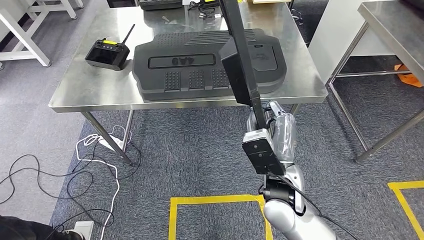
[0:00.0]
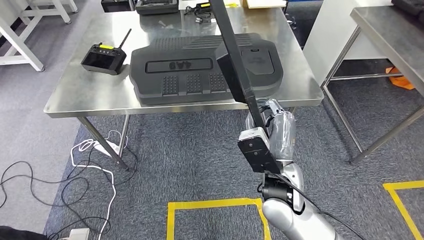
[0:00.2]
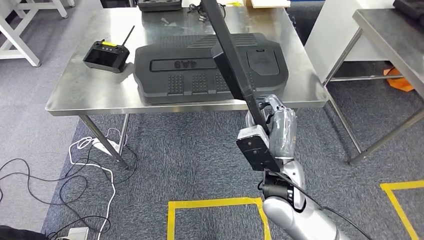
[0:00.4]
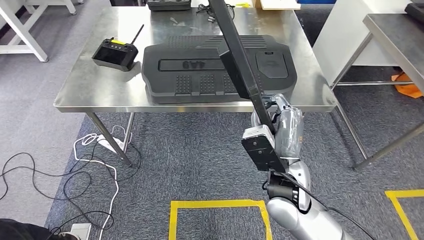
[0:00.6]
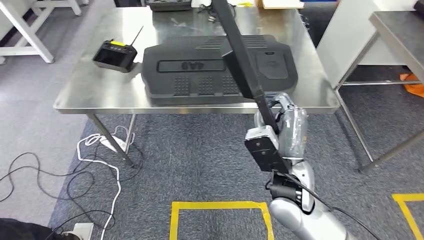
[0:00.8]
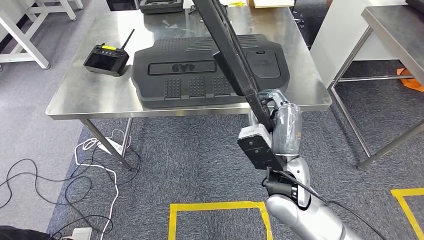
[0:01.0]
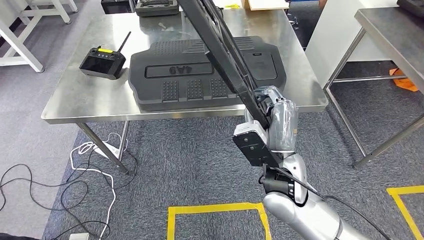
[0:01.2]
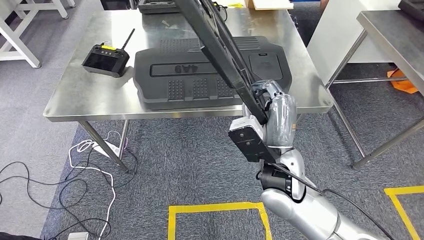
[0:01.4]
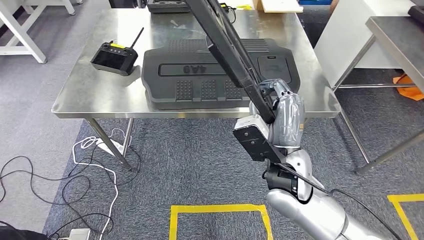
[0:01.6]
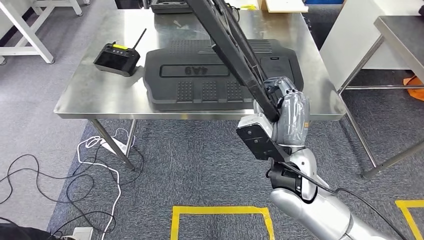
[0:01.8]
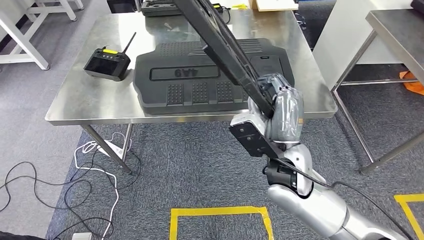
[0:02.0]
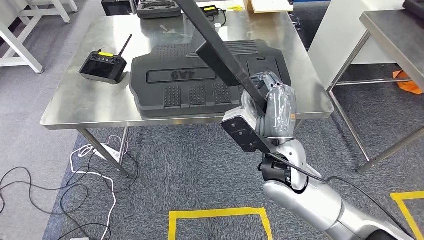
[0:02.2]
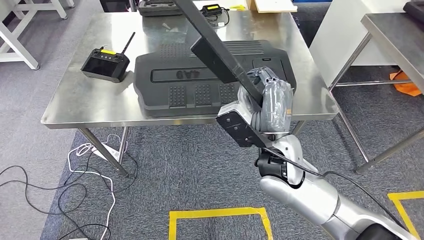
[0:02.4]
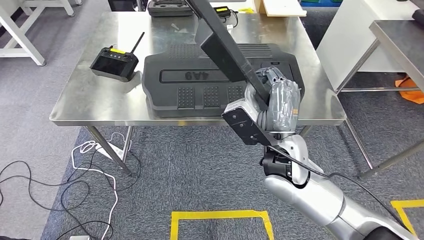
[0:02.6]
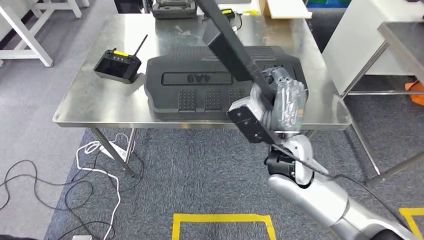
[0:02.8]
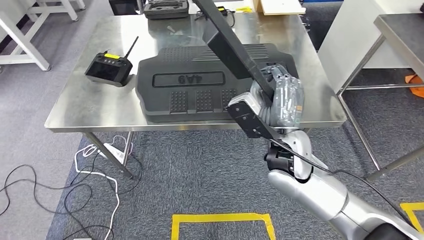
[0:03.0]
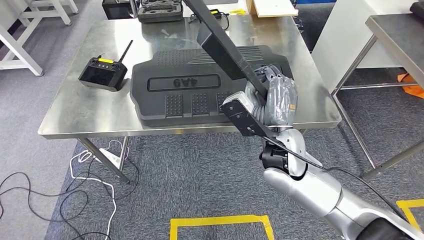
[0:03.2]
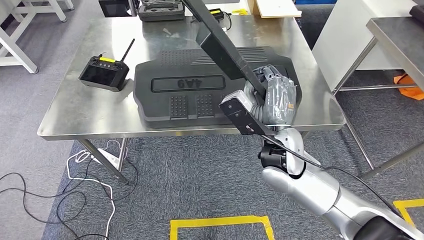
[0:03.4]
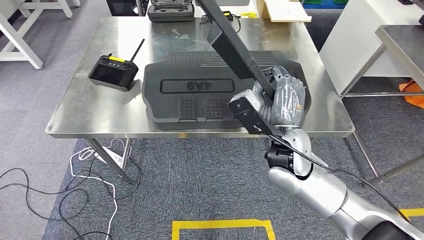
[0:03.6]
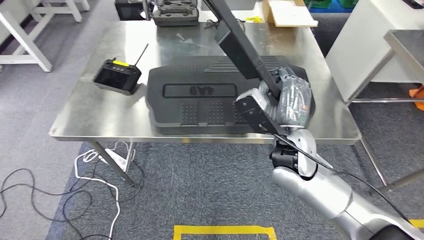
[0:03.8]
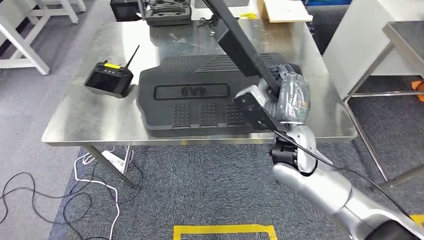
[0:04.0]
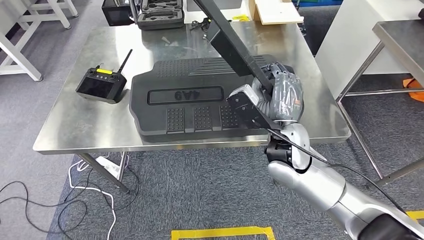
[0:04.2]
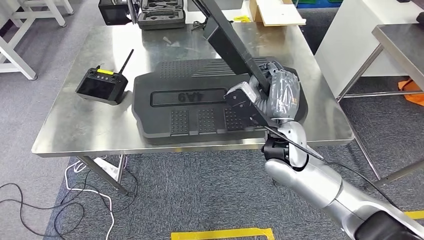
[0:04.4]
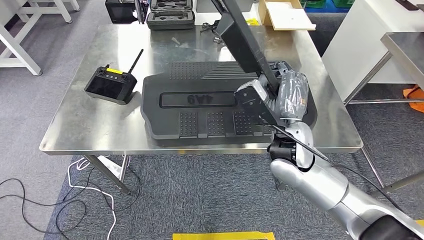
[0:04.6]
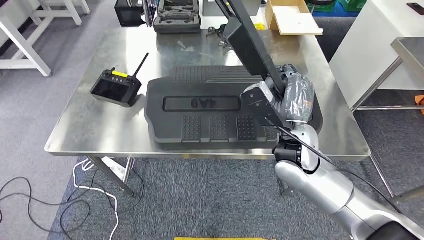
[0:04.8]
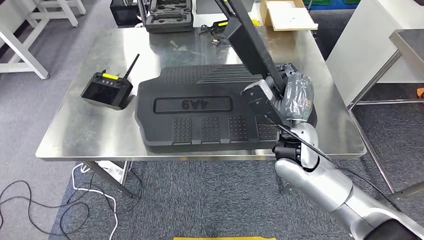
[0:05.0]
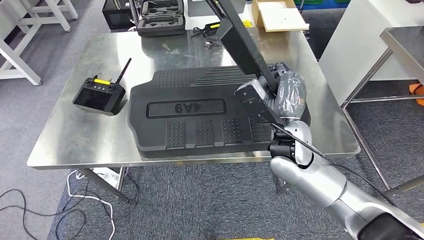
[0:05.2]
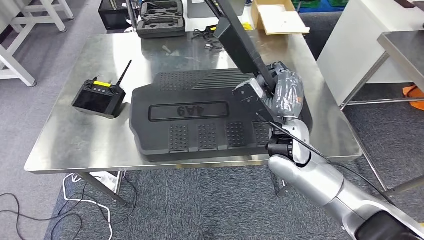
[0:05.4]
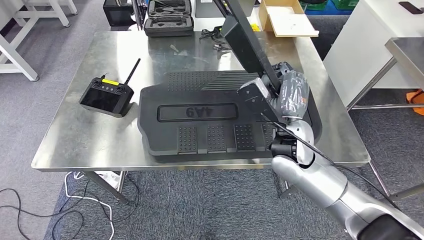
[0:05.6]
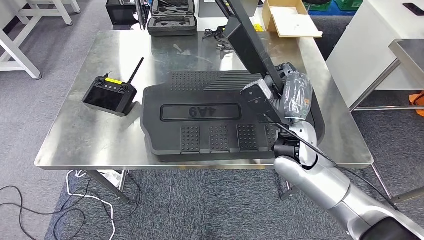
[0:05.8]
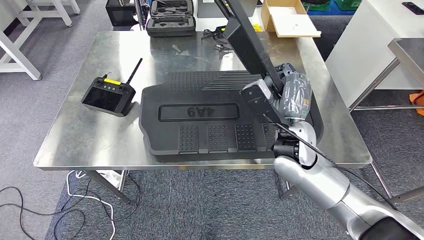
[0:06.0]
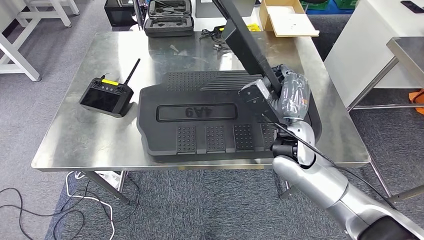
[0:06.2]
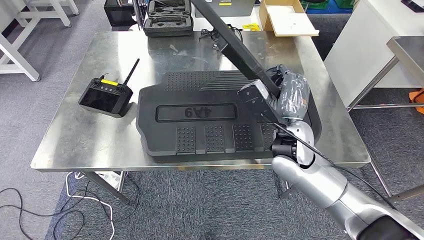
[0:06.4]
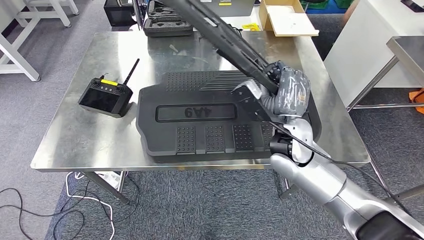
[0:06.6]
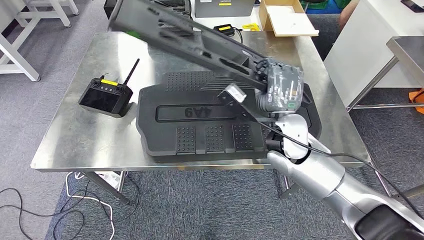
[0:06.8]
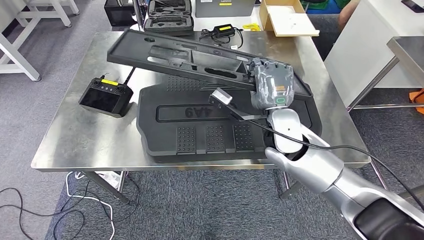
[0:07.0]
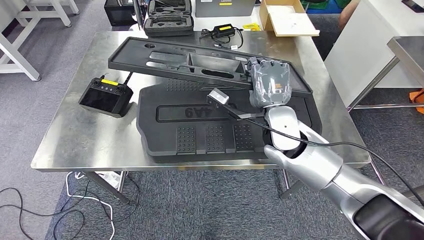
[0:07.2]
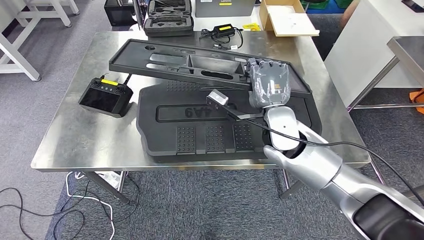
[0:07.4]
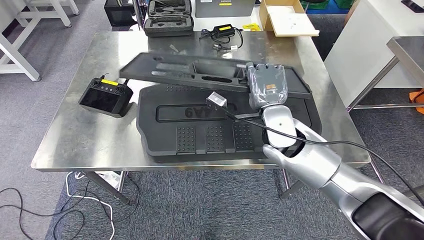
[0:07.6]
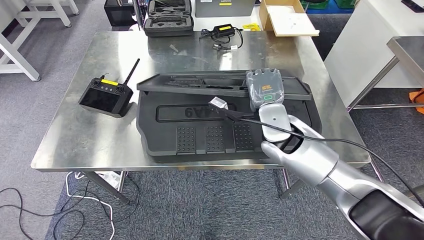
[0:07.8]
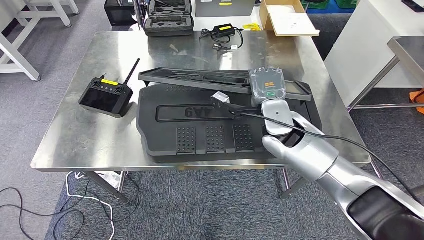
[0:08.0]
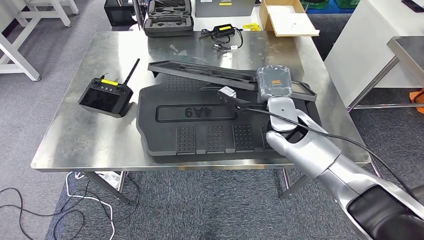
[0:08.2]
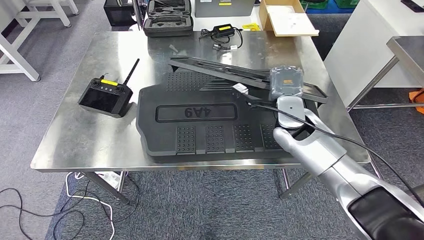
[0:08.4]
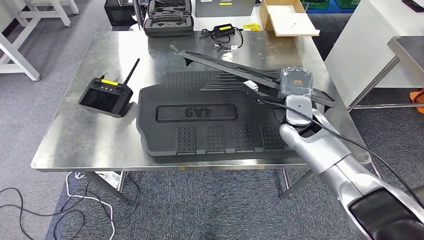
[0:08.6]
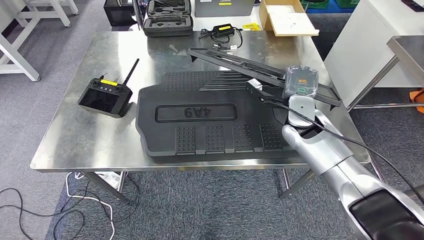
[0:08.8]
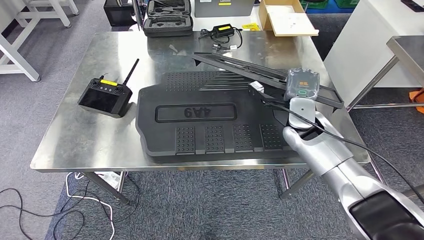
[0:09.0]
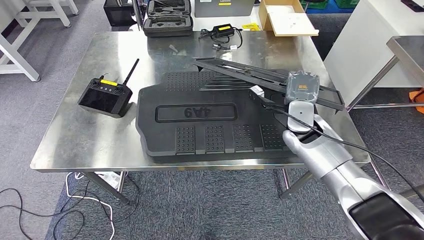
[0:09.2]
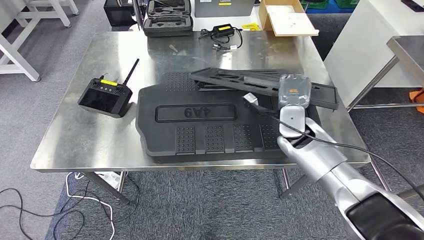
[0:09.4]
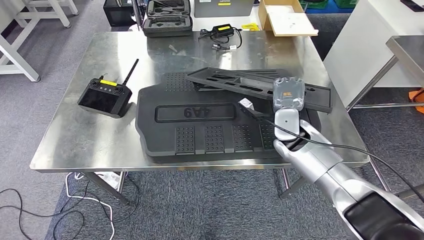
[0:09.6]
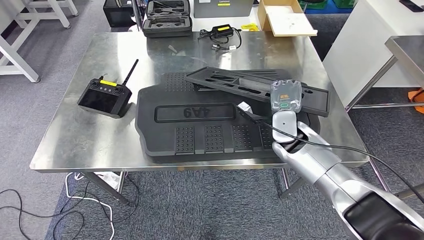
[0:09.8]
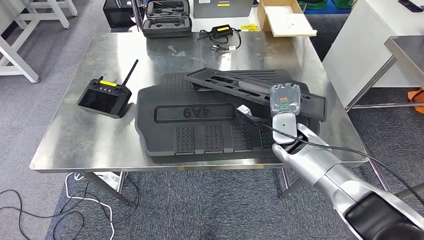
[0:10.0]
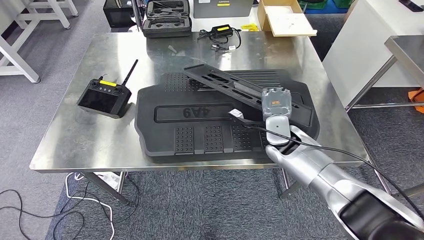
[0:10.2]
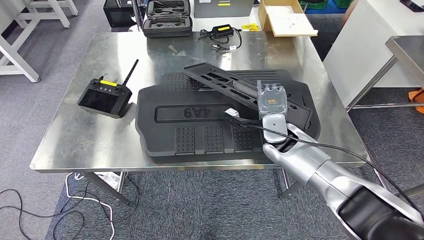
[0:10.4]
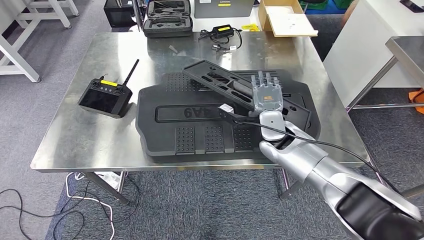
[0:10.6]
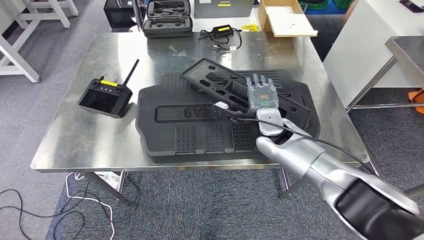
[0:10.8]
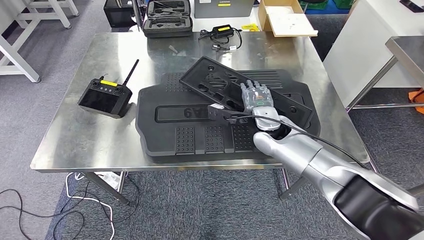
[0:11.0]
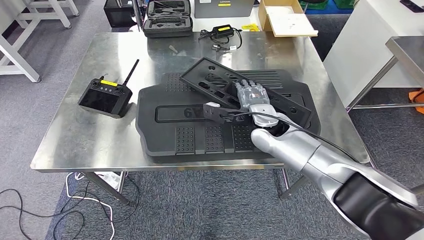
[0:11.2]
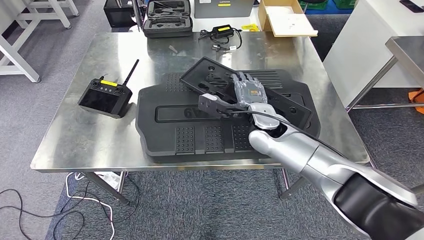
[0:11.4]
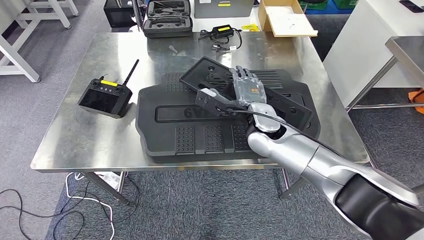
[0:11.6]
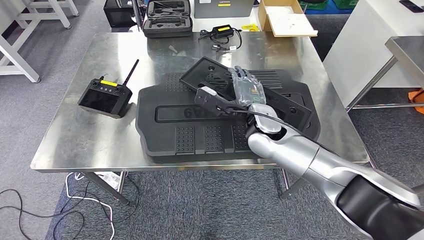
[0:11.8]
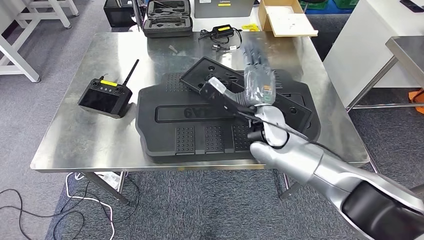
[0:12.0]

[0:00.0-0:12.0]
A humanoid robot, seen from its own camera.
Step, 0:00.0 to 0:03.0: Move the large material to the workbench.
0:07.6 to 0:09.0: The right hand goes approximately 10 cm to the right.
0:09.0 to 0:10.4: The right hand goes about 5 cm to the left.
0:10.4 to 0:12.0: The right hand moves upward and to the left, some 10 cm.

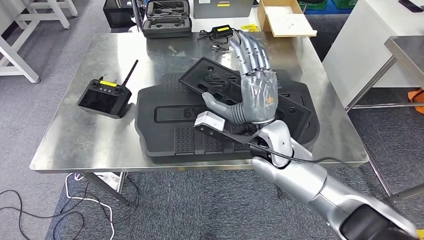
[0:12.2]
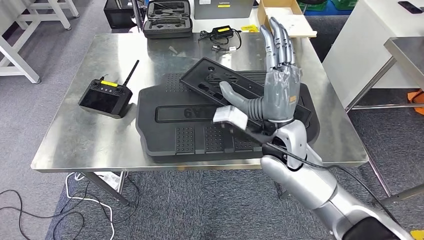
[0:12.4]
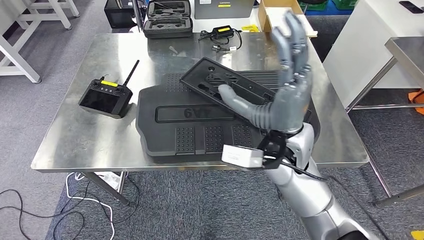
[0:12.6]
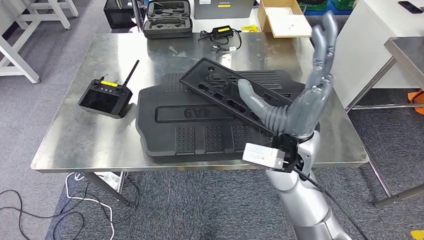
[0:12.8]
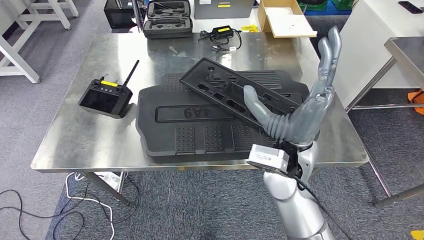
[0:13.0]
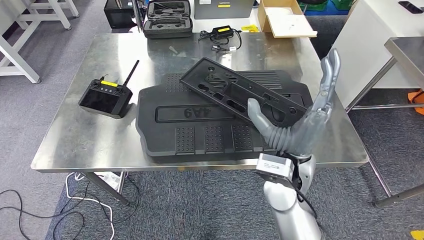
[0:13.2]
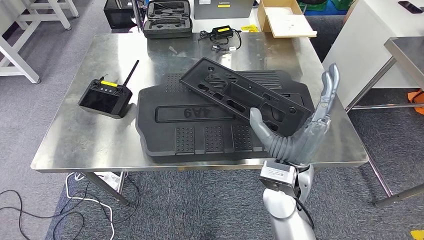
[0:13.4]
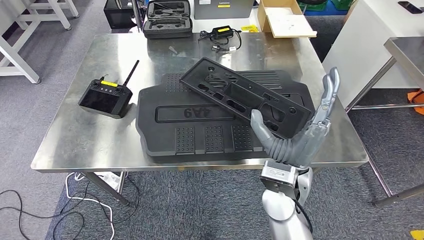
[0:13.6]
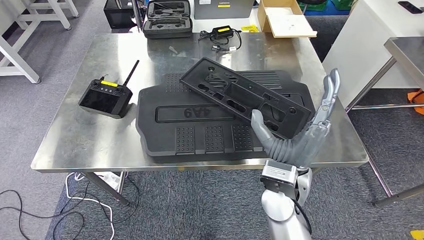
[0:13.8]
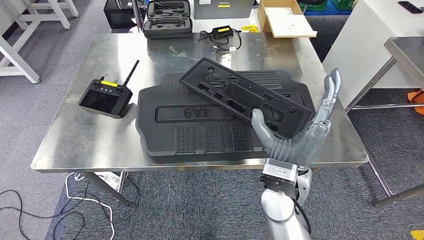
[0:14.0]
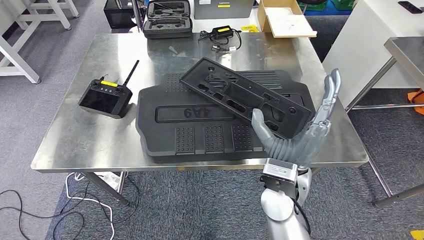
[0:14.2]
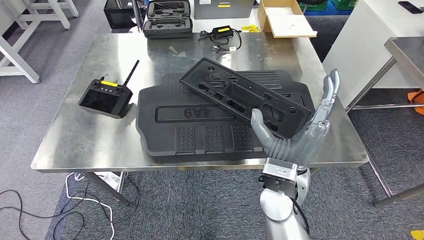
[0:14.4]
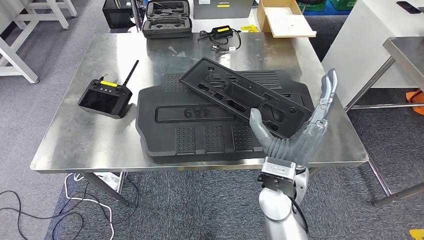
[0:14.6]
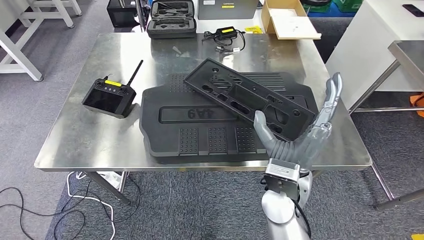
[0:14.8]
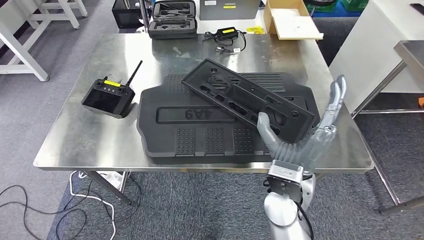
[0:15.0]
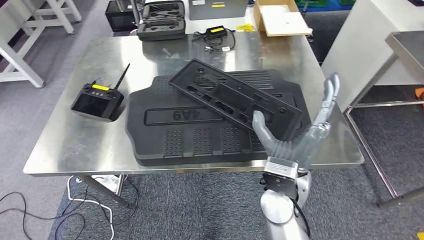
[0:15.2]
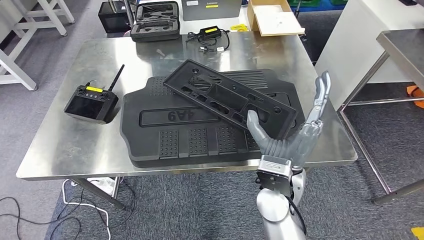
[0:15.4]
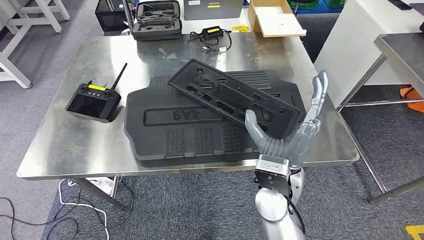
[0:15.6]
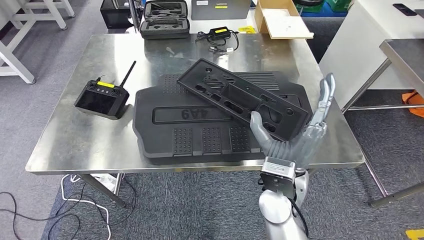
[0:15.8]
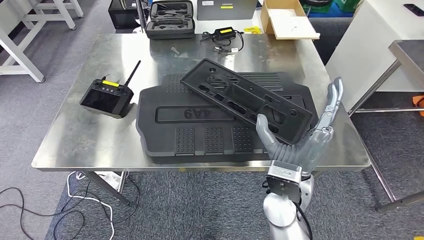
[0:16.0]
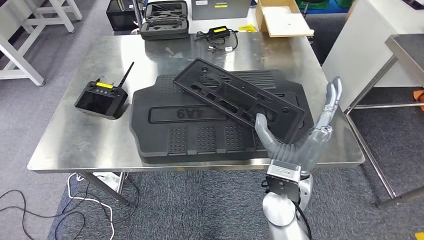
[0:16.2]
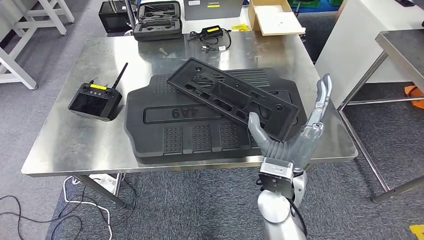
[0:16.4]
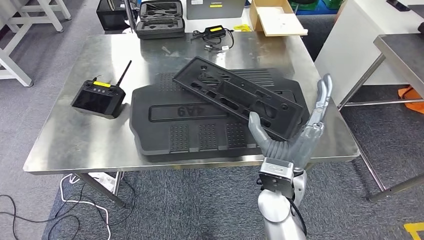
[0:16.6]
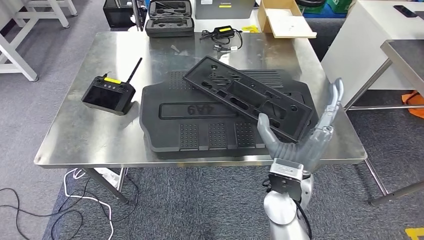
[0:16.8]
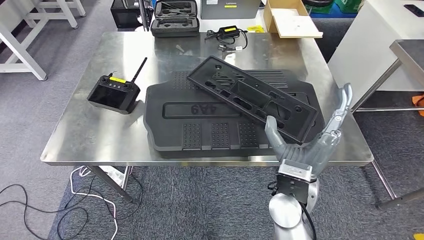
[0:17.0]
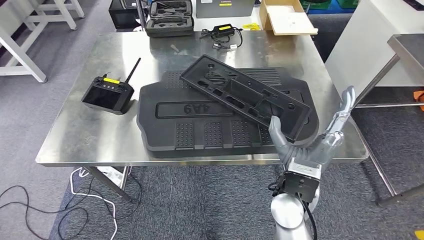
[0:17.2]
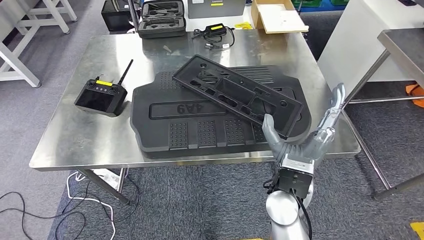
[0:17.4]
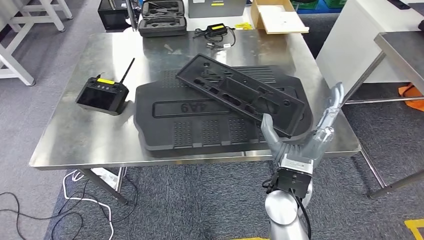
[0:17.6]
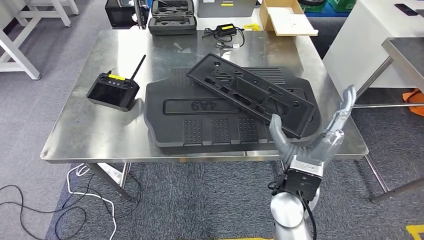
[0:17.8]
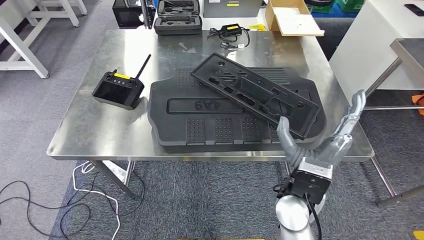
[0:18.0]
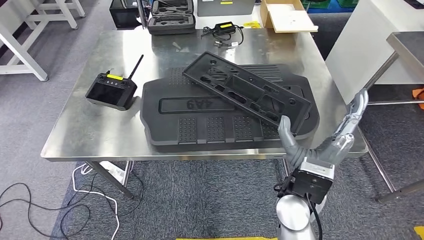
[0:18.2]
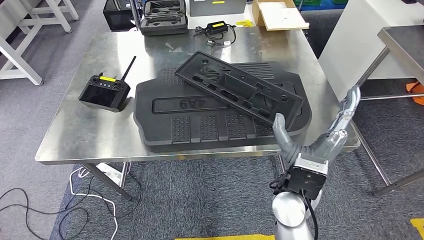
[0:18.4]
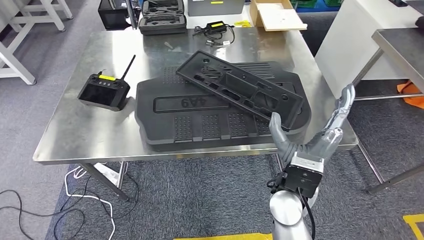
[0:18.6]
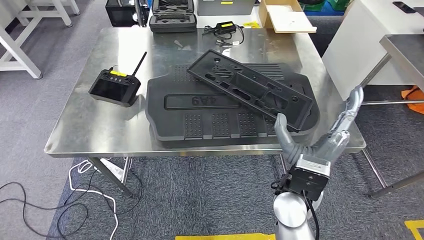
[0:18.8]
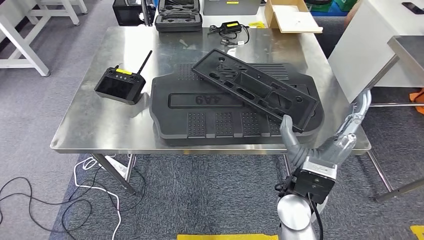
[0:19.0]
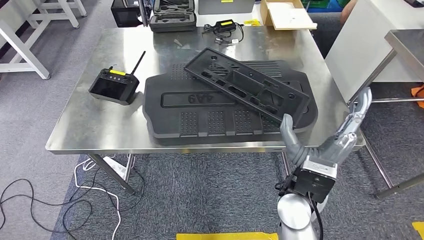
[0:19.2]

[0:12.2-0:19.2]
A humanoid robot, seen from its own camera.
0:12.2 to 0:13.6: The right hand shifts some 10 cm backward and downward.
